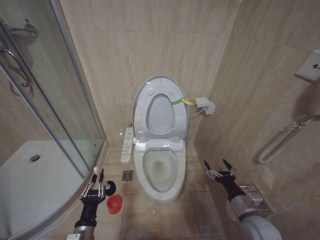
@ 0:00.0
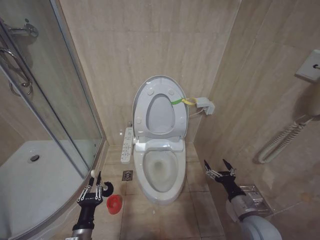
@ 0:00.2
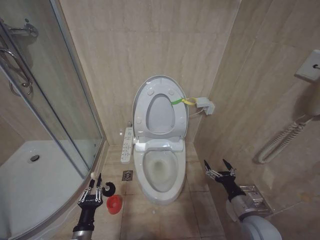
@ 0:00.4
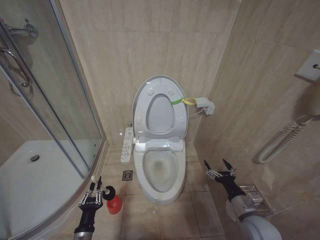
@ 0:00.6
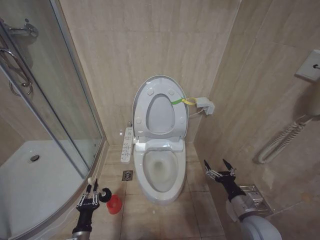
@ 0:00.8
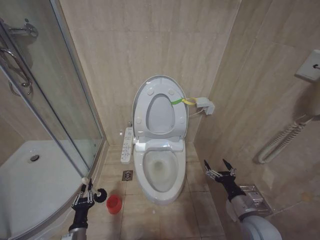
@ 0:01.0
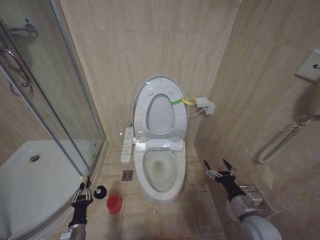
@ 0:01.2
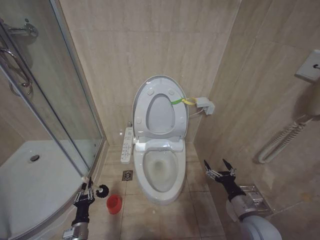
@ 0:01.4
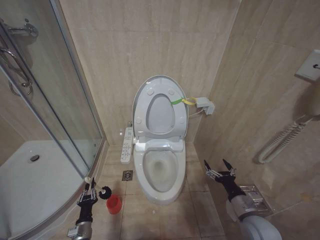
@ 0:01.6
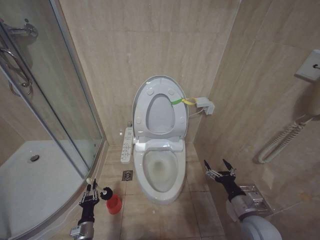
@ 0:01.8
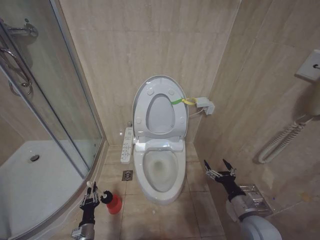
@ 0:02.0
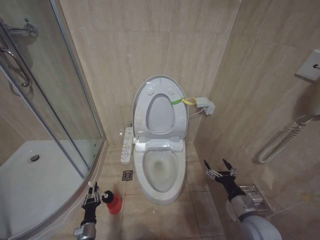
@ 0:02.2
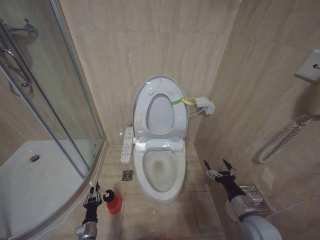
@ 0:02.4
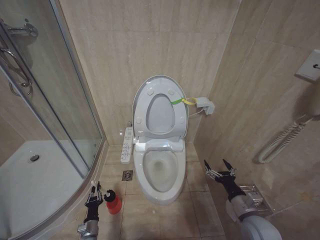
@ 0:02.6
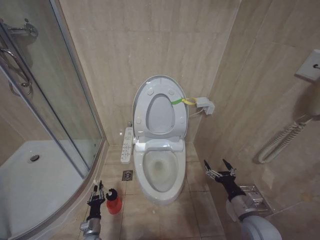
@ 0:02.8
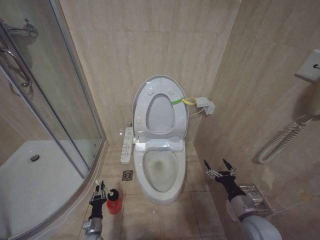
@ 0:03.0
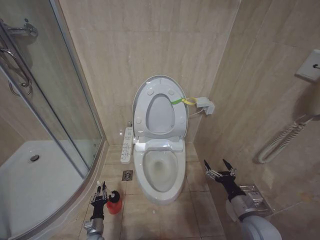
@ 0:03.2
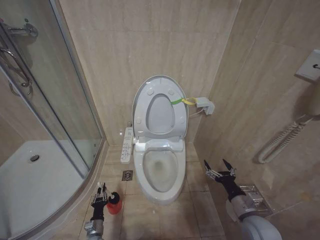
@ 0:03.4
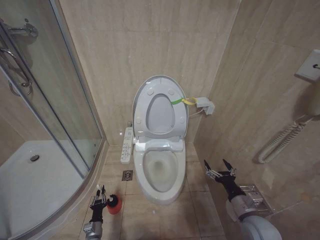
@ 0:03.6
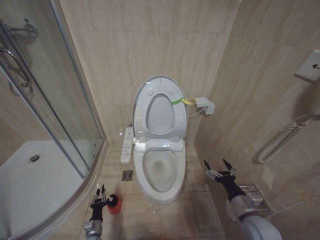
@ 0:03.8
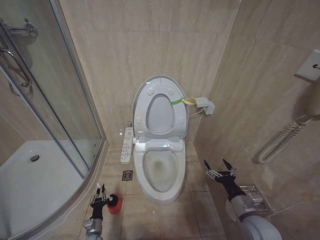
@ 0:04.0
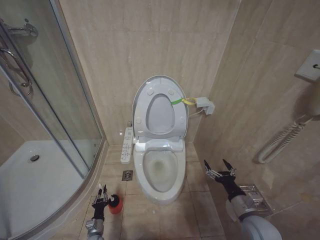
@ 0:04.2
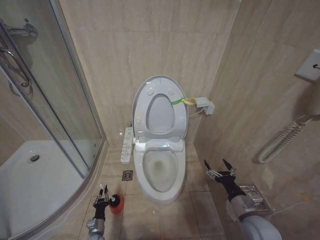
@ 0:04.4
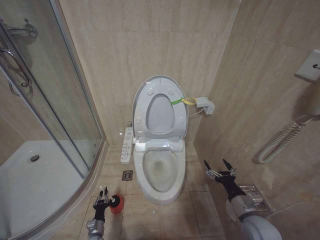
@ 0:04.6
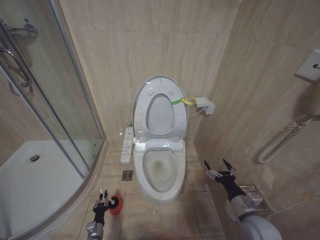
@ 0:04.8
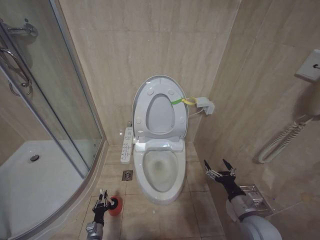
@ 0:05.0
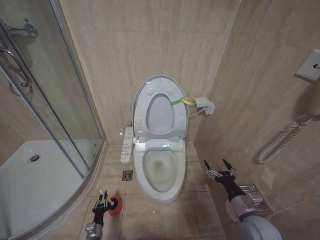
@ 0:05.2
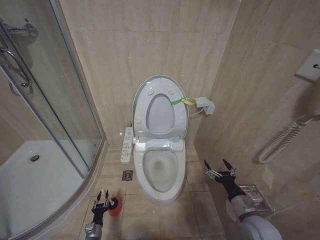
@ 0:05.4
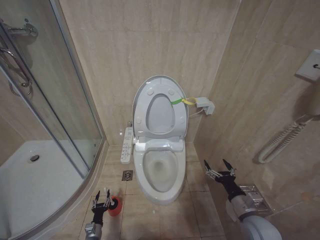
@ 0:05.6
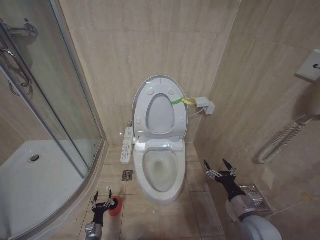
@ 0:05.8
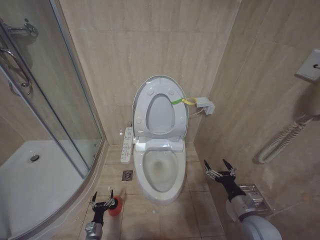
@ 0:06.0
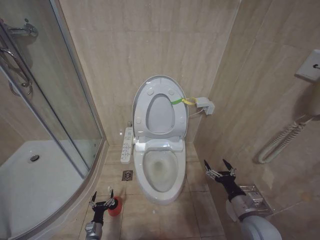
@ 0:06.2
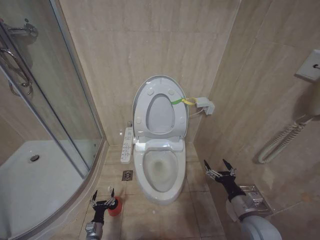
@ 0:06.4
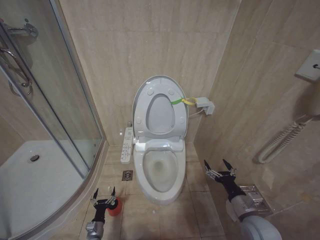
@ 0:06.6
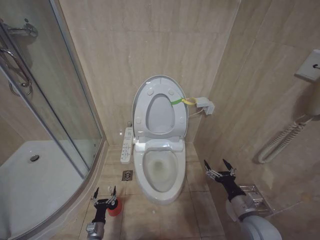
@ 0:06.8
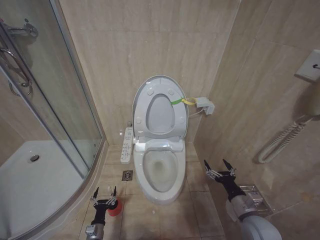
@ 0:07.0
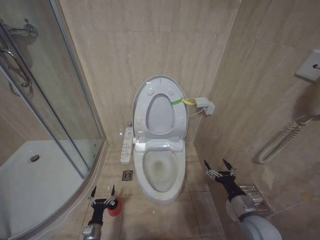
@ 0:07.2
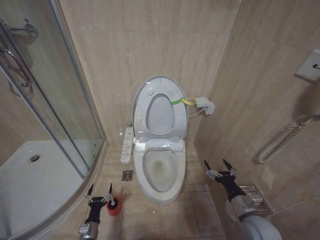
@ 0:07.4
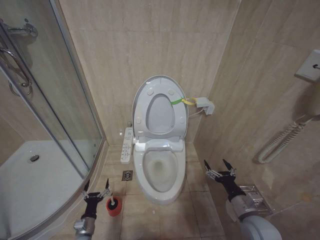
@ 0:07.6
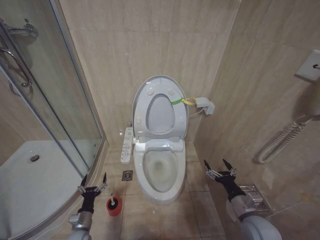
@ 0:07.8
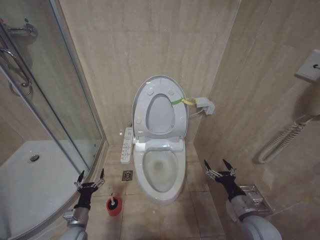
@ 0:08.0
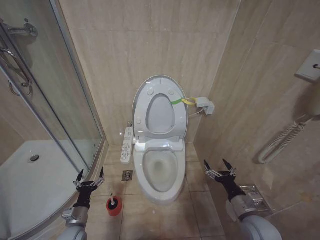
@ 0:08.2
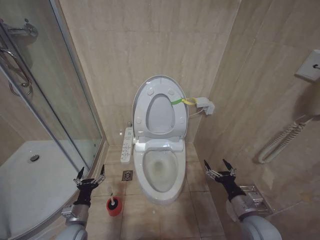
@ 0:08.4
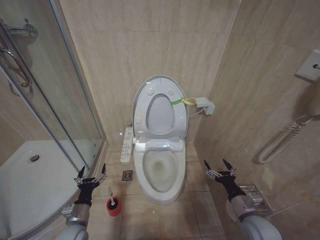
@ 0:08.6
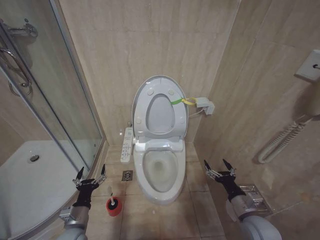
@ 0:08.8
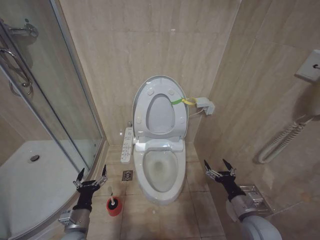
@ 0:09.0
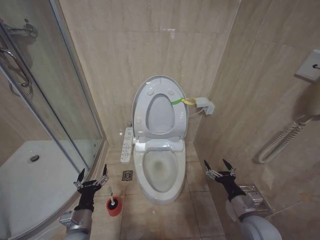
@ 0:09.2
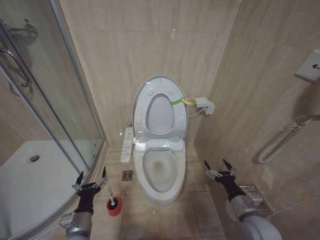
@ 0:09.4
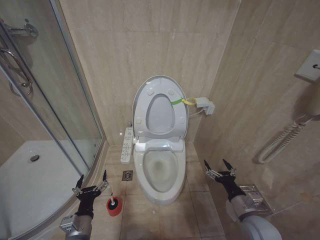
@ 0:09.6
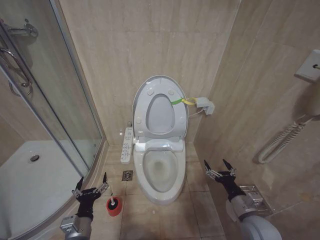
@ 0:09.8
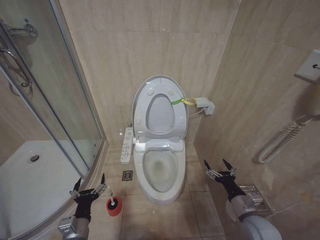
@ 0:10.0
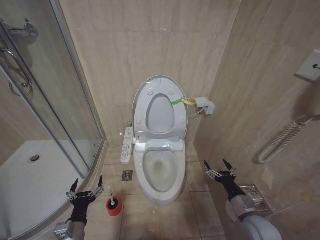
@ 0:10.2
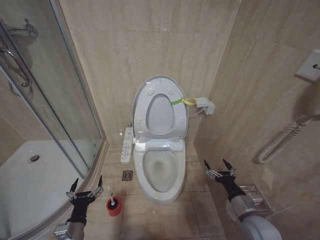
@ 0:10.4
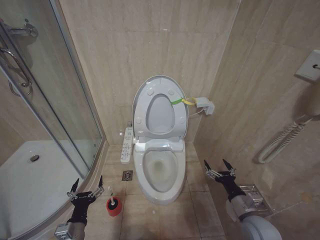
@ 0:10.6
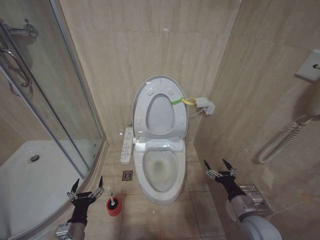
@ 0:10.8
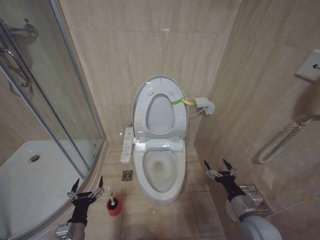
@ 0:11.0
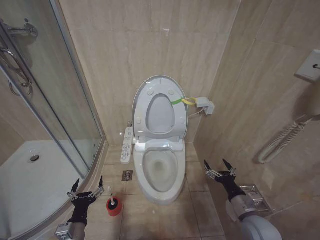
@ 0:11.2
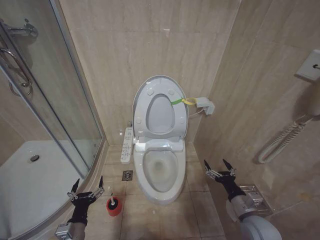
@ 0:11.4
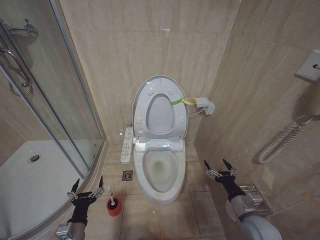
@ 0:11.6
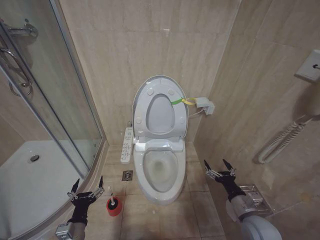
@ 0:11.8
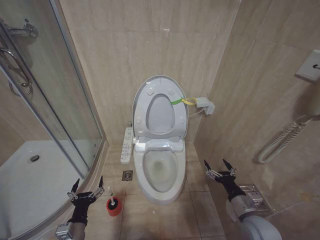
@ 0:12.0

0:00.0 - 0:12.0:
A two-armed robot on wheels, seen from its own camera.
Task of the whole recording: Open the toilet lid, clean the toilet bowl with a toilet brush, close the toilet lid, and flush.
0:00.0 - 0:01.6: The left gripper moves downward and to the left, about 15 cm.
0:01.6 - 0:03.0: The left gripper travels downward by some 10 cm.
0:04.4 - 0:06.0: The left gripper opens.
0:06.0 - 0:07.6: The left gripper moves upward, about 10 cm.
0:07.6 - 0:09.0: The left gripper is displaced upward by approximately 20 cm.
0:09.0 - 0:10.4: The grippers move only a little.
0:10.4 - 0:12.0: The two grippers keep their place.

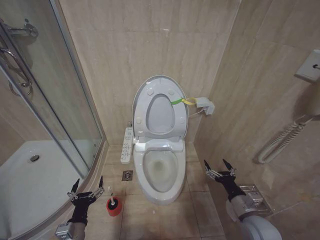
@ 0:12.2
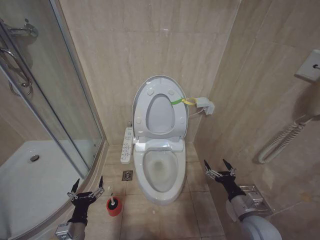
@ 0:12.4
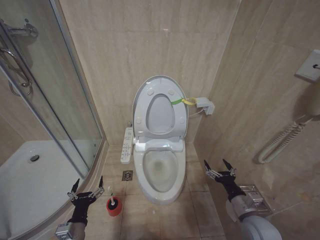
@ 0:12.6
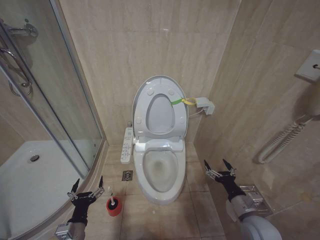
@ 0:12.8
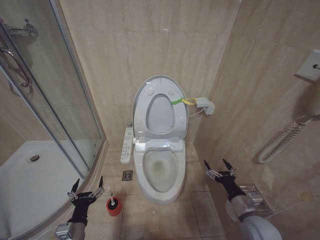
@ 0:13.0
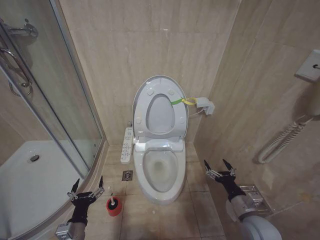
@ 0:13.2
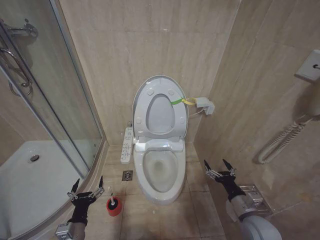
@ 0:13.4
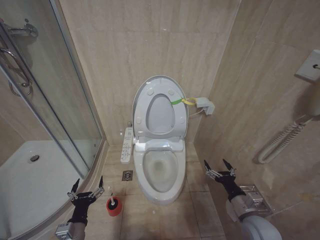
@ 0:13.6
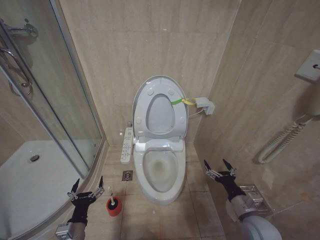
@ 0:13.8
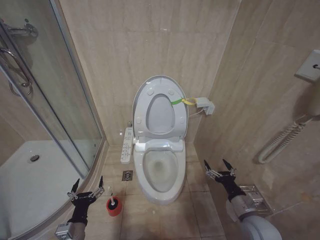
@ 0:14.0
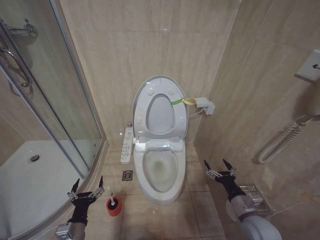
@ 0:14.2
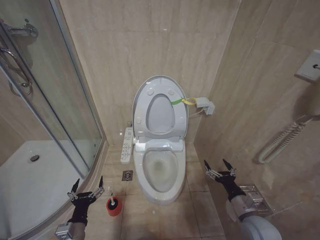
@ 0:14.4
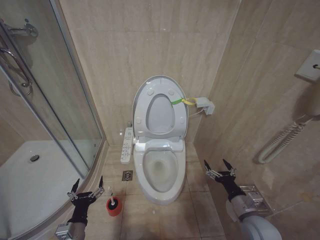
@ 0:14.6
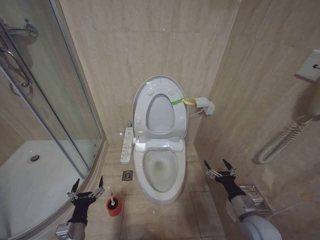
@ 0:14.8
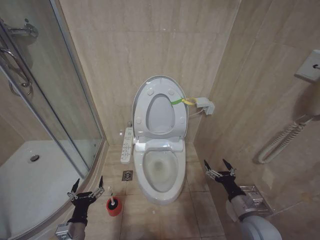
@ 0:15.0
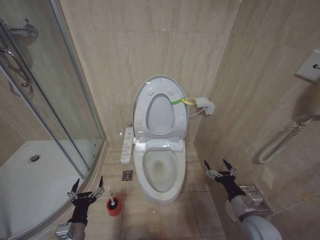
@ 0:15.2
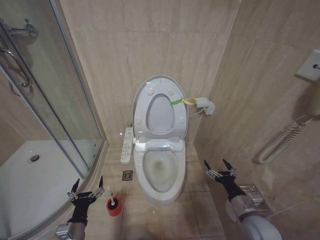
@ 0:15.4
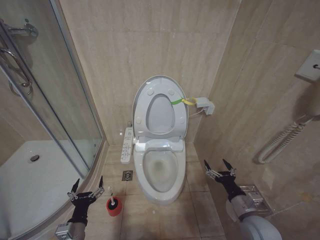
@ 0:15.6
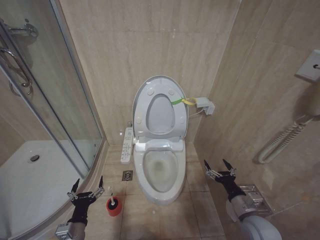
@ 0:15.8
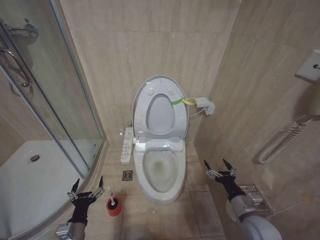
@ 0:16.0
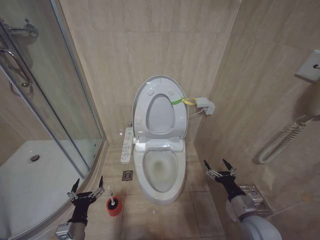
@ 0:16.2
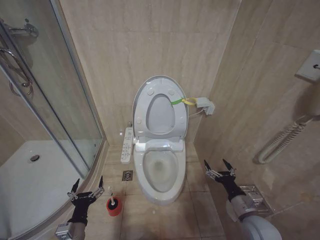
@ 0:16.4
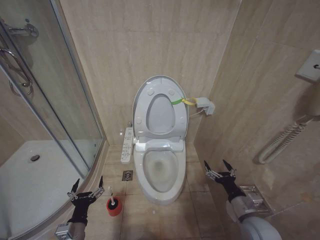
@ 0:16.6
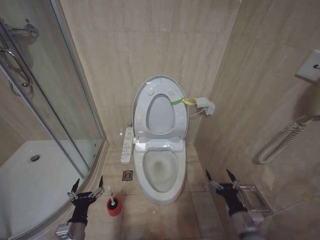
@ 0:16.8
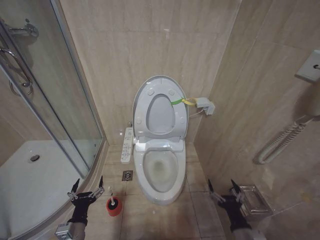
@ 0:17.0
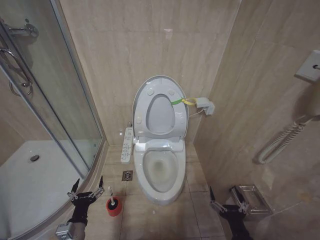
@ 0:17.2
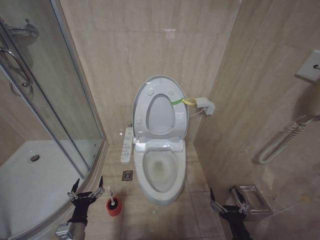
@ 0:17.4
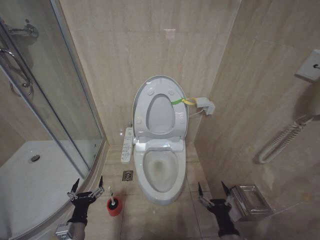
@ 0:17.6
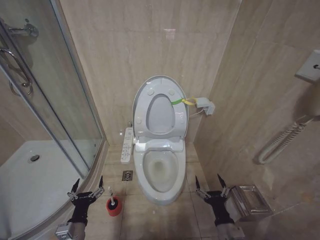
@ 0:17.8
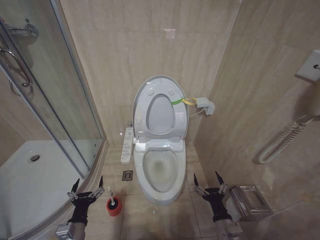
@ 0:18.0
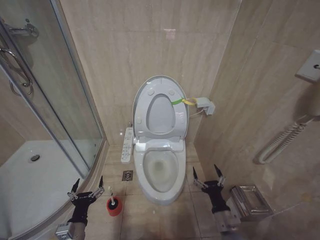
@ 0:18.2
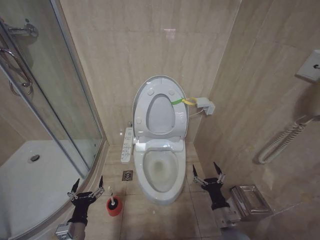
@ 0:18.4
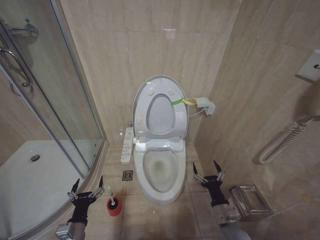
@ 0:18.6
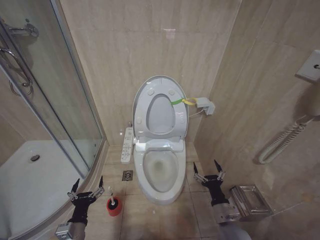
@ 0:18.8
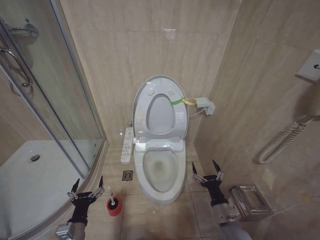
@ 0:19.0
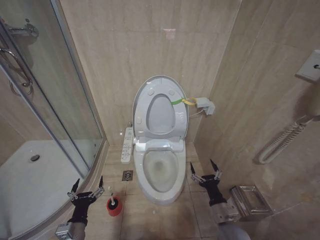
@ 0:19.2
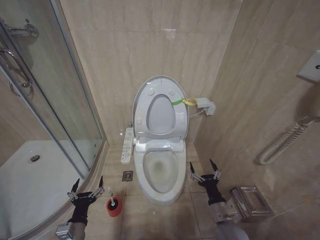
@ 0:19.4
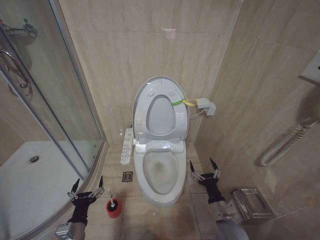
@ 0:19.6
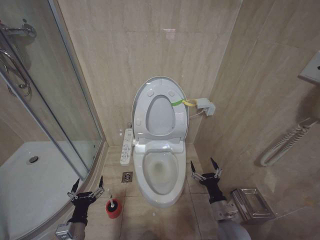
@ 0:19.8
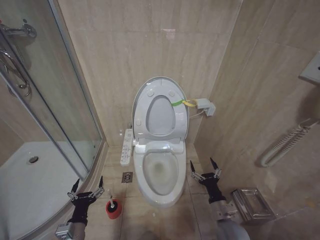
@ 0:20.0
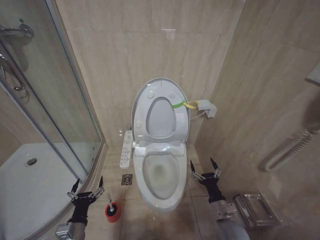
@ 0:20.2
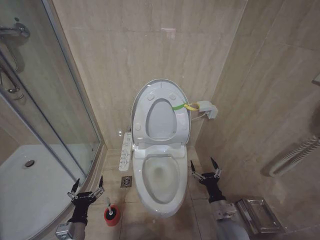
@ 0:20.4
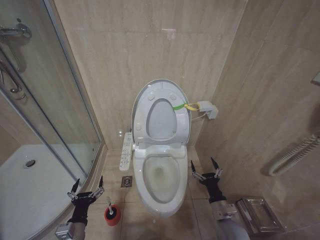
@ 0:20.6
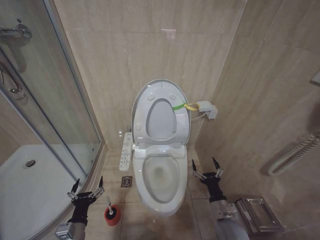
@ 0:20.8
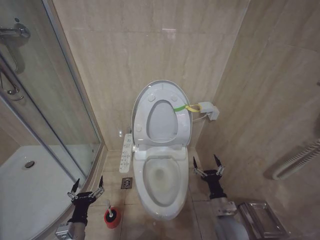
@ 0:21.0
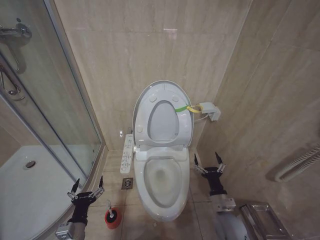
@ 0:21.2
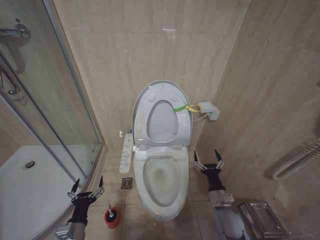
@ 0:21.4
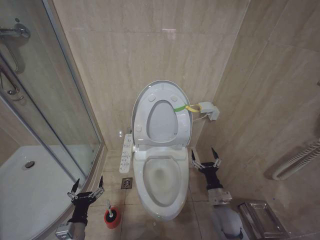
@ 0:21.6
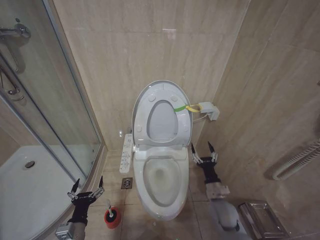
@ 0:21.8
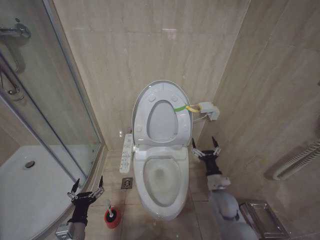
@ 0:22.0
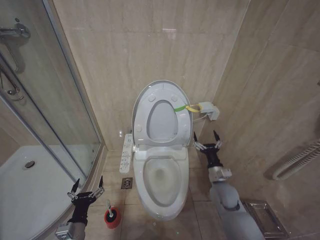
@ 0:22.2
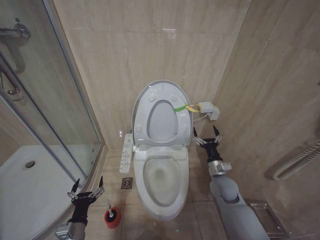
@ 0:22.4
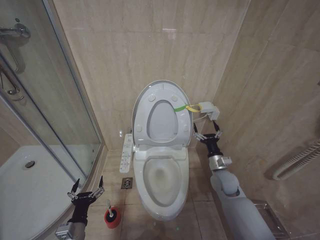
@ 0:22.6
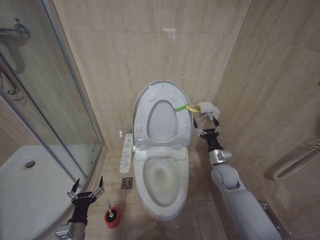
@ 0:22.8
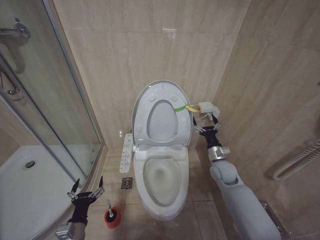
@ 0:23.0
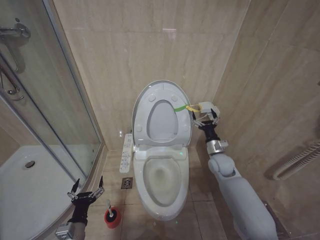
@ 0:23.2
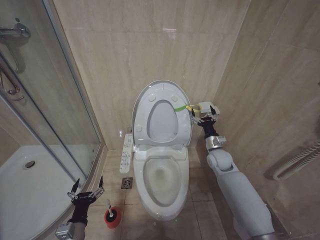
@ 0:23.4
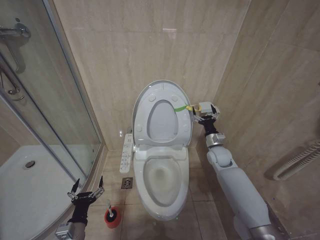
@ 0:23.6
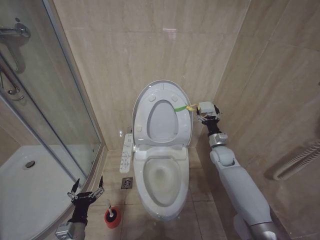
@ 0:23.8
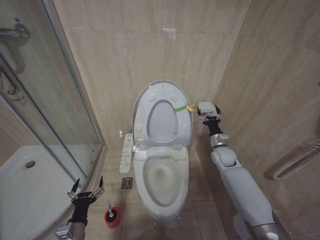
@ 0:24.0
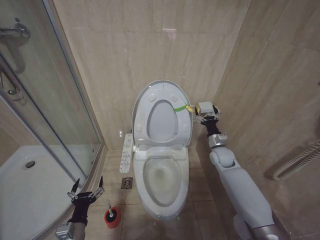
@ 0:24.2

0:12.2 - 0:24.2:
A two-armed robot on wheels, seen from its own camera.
Task of the whole recording: Open the toilet lid, clean the toilet bowl with a toilet brush, close the toilet lid, and flush.
0:12.2 - 0:16.6: The two grippers keep their place.
0:16.6 - 0:18.2: The right gripper travels to the left and downward by some 10 cm, and moves roughly 10 cm backward and comes back.
0:18.2 - 0:19.8: The grippers move only a little.
0:19.8 - 0:21.2: The grippers move only a little.
0:21.2 - 0:22.6: The right gripper is displaced forward and upward by some 15 cm.
0:22.6 - 0:24.2: The right gripper moves forward, roughly 10 cm.
